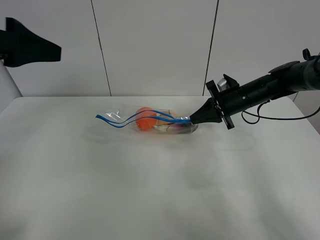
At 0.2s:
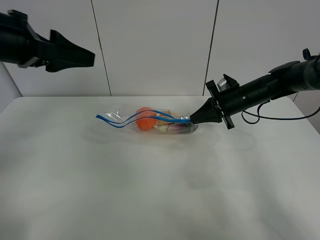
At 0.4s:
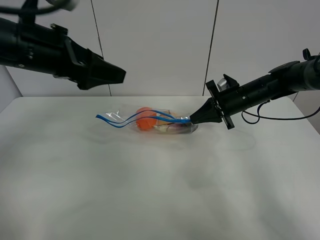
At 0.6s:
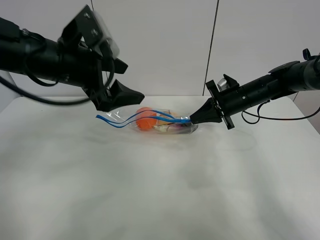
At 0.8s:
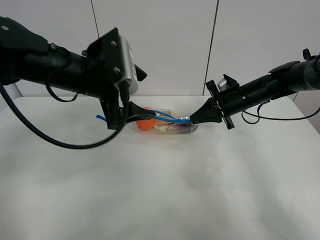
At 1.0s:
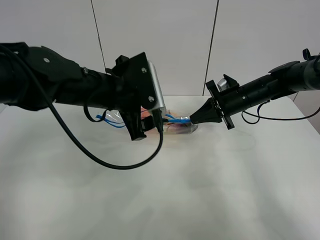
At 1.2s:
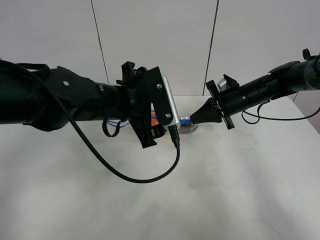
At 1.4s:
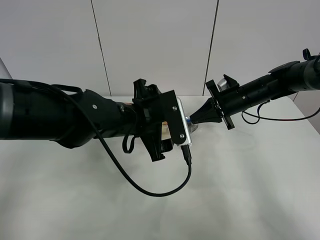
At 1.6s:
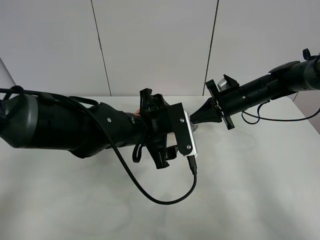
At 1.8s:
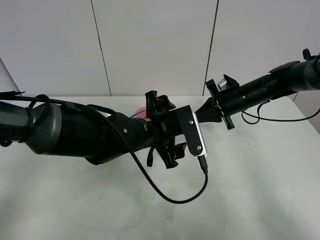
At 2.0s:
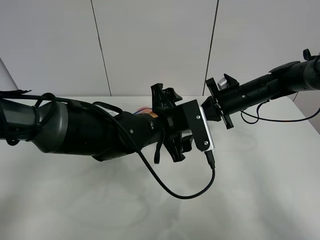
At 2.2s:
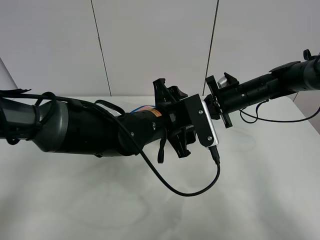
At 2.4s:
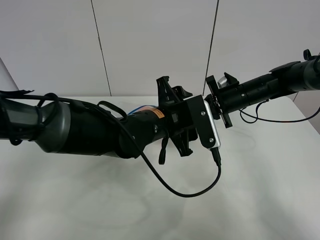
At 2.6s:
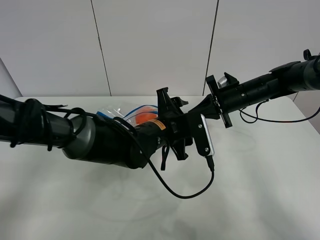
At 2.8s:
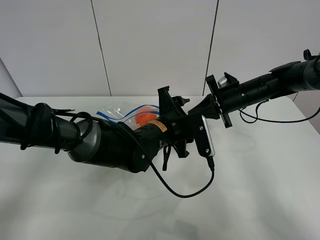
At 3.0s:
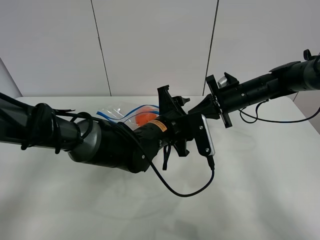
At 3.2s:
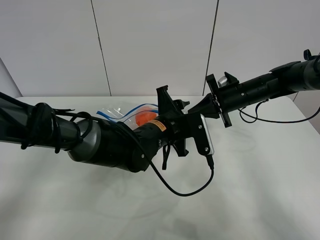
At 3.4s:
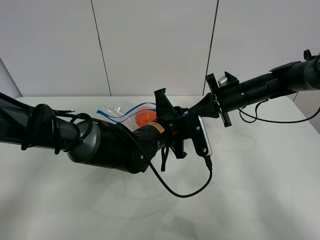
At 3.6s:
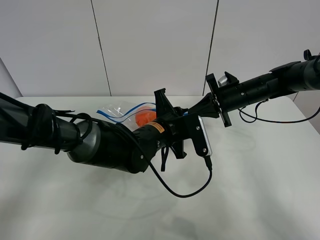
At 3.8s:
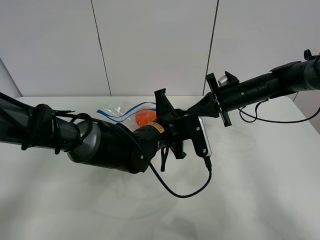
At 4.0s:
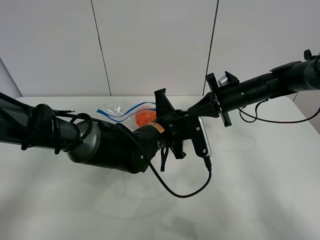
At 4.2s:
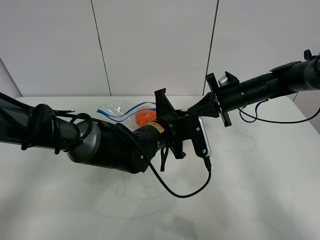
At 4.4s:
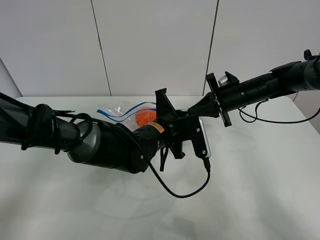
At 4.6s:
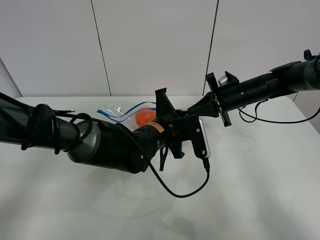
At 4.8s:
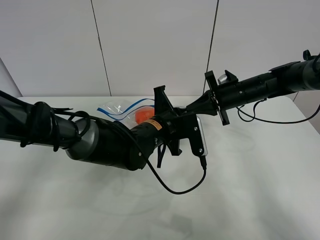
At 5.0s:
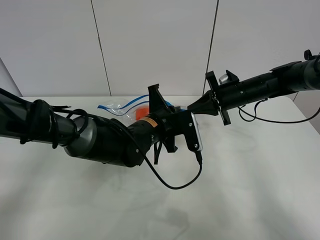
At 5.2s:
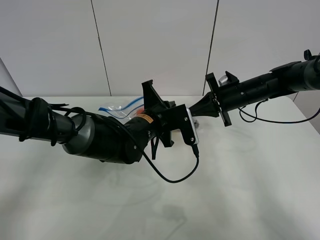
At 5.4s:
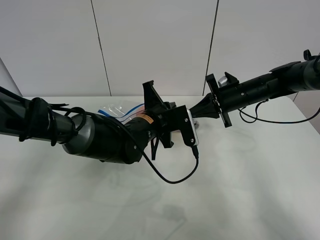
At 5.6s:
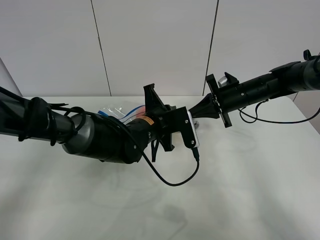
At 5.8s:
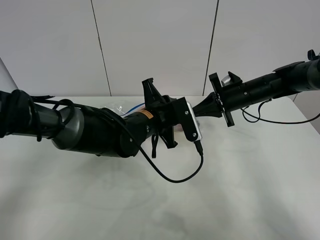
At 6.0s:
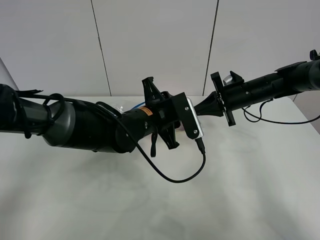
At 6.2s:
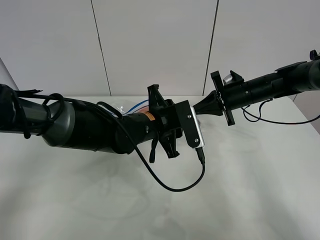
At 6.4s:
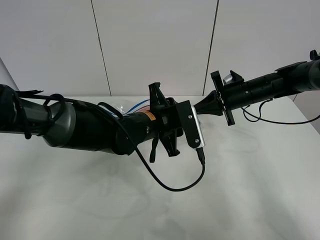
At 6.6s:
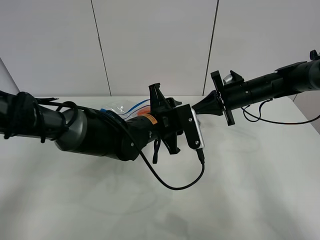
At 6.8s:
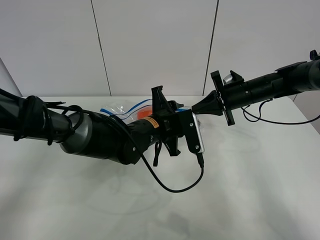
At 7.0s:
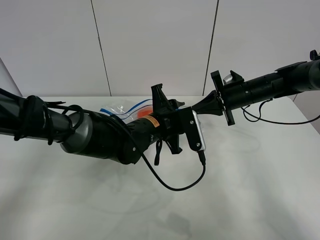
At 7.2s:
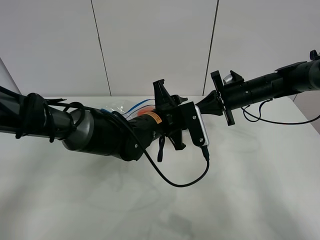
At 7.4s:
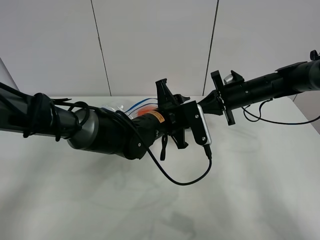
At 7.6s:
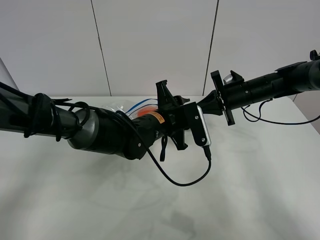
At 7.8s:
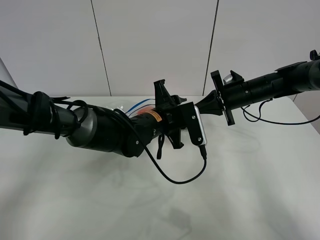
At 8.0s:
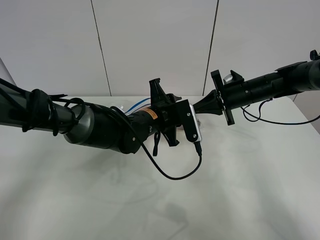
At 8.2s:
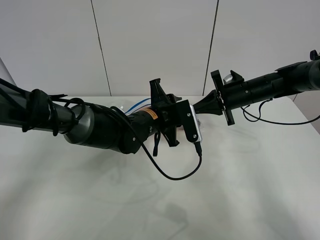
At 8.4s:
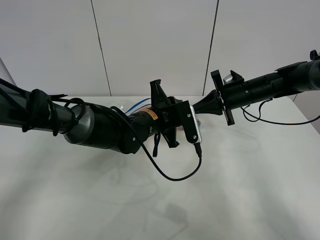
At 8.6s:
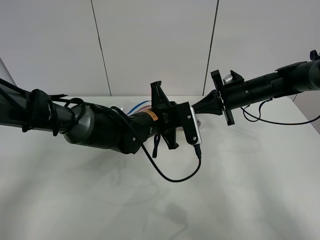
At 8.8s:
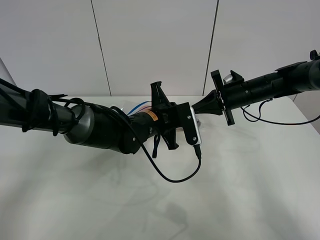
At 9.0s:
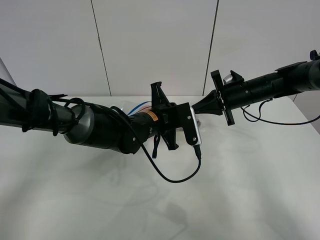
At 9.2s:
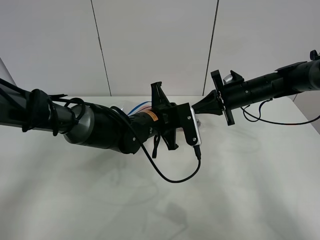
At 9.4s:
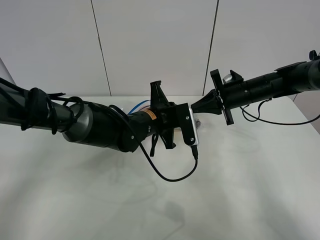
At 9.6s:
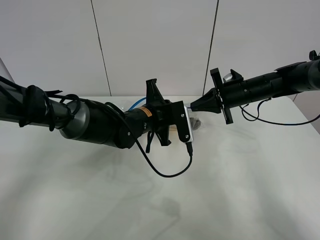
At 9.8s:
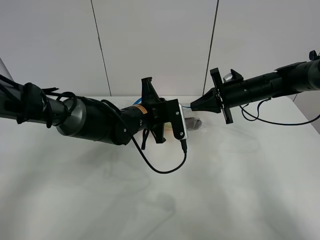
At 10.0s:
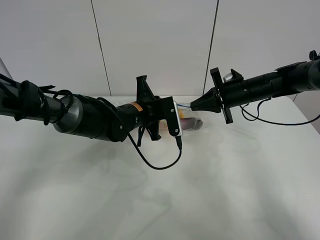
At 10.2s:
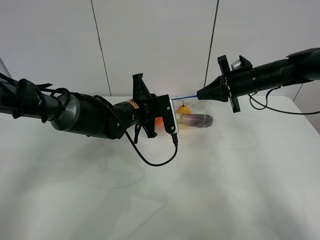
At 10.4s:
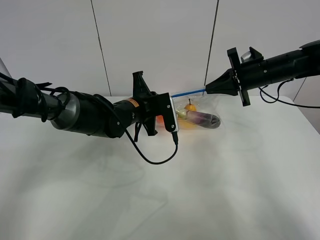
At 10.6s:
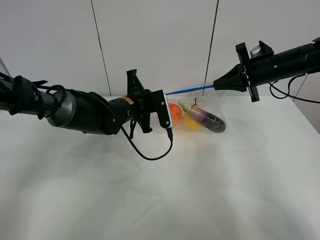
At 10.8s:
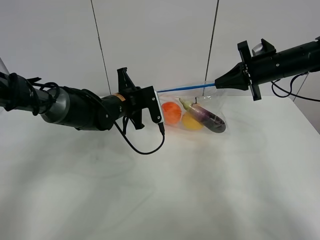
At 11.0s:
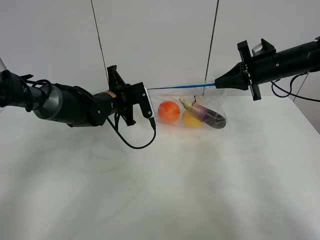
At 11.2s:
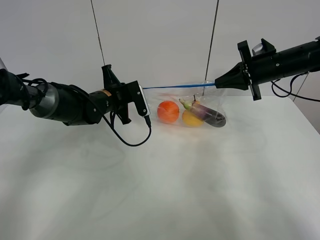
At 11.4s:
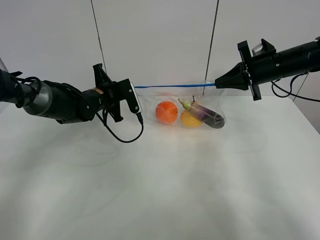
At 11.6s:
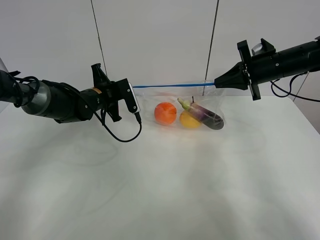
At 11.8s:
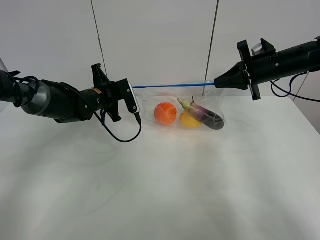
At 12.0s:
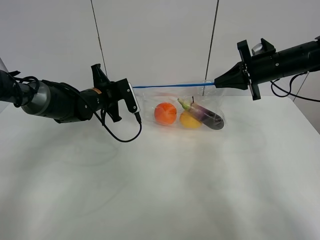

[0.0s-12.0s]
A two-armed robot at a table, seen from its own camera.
0.0s to 1.6s: The left gripper heads to the right and downward, covering about 30 cm.
1.6s to 3.0s: The left gripper changes place by roughly 5 cm.
3.0s to 4.4s: The left gripper closes up.
4.4s to 6.0s: The left gripper opens up.
6.0s to 7.6s: The grippers make only small movements.
7.6s to 9.0s: The left gripper closes its fingers.
9.0s to 10.4s: The left gripper goes approximately 5 cm to the left. Meanwhile the right gripper is displaced upward by some 5 cm.
10.4s to 12.0s: The left gripper shifts some 10 cm to the left.

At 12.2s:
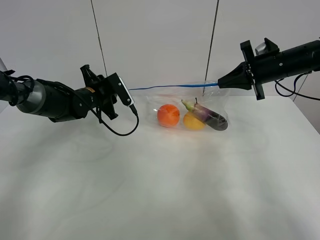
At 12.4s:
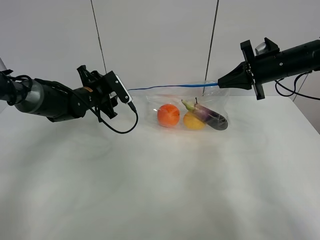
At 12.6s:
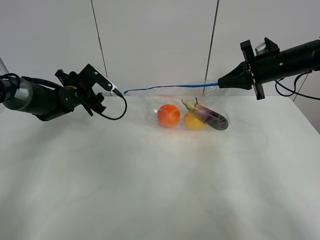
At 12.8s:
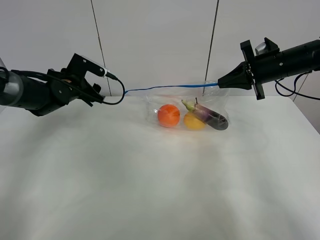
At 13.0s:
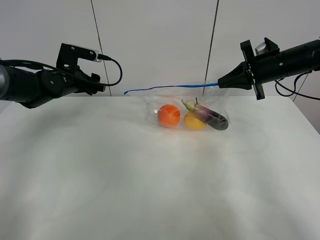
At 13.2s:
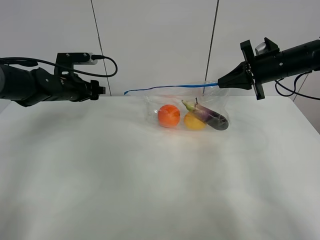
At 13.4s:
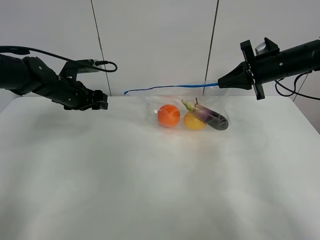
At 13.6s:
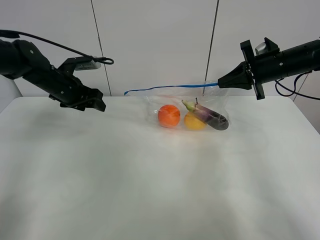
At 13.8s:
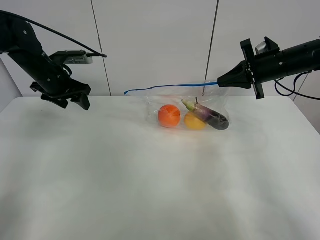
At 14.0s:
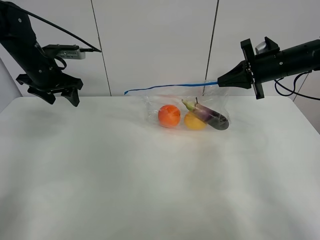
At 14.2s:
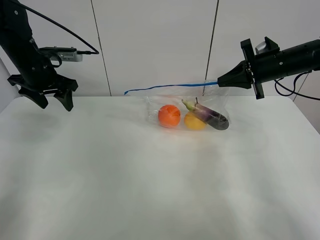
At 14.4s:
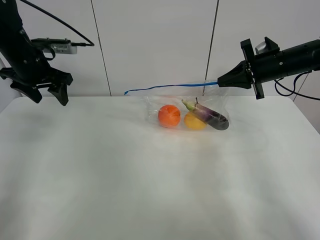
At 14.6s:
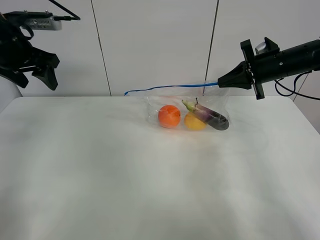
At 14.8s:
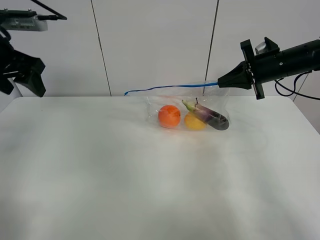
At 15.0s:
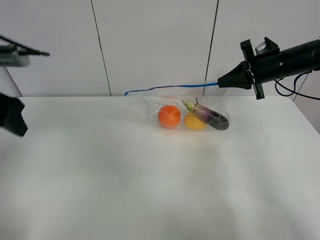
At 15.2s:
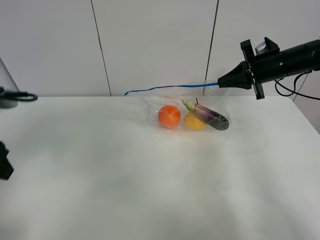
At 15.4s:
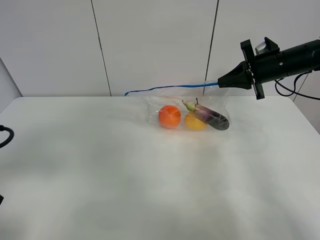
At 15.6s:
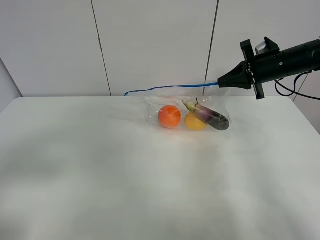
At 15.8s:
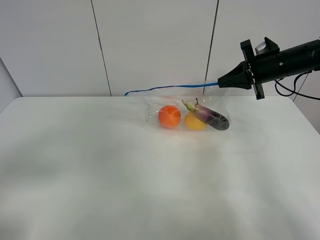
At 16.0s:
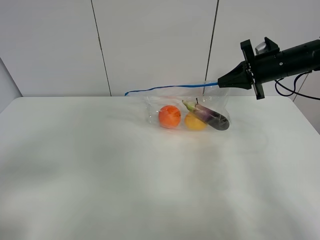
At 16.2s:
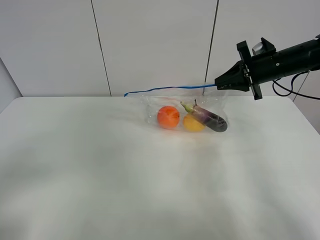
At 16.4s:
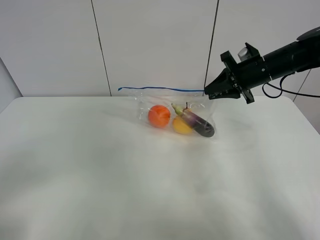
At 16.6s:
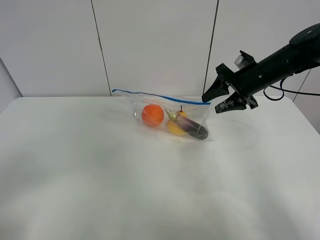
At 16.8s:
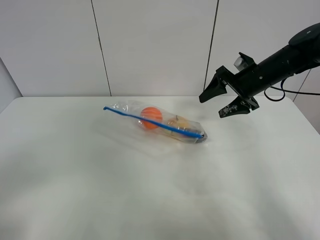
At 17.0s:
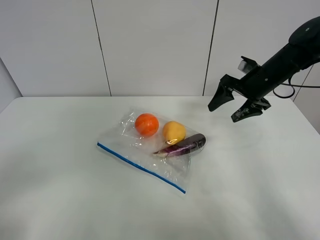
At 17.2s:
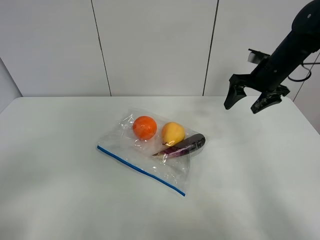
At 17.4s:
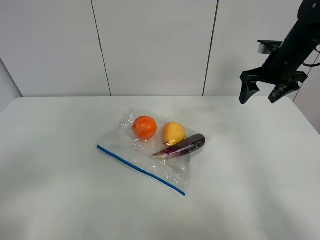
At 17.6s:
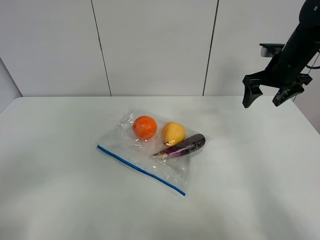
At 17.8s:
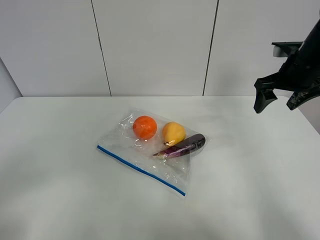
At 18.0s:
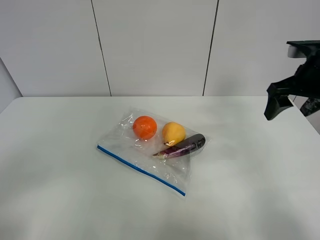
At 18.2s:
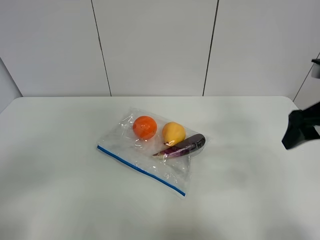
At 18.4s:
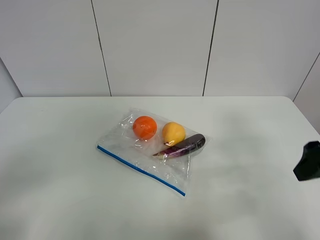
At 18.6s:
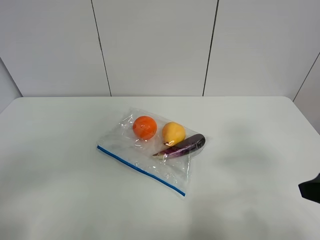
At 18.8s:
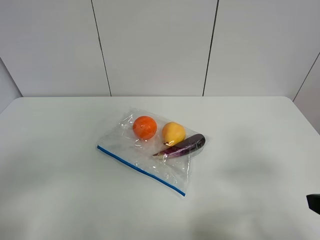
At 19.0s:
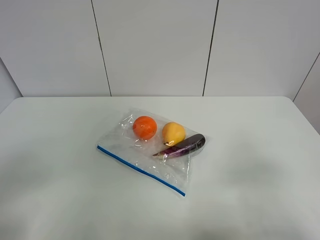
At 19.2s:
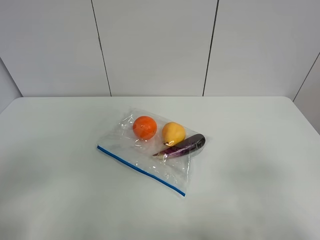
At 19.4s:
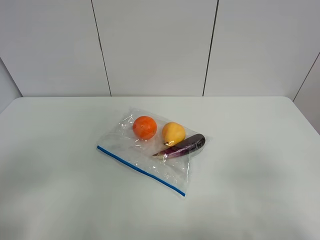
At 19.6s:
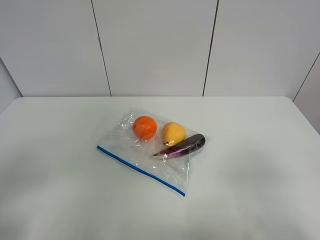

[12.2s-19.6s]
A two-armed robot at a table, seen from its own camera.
12.2s to 13.6s: The left gripper goes roughly 10 cm to the left and upward.
13.6s to 15.2s: The left gripper moves backward, approximately 25 cm.
15.2s to 16.6s: The left gripper moves backward, about 15 cm, while the right gripper opens up.
16.6s to 18.2s: The right gripper goes roughly 20 cm backward.
18.2s to 19.6s: The right gripper travels backward by some 20 cm.
